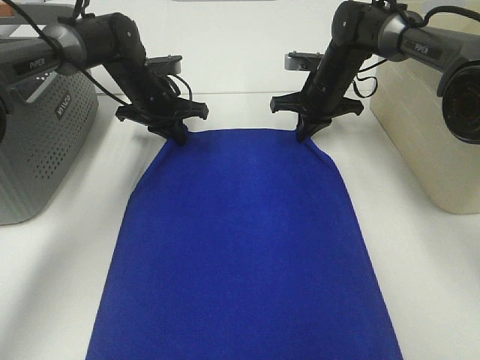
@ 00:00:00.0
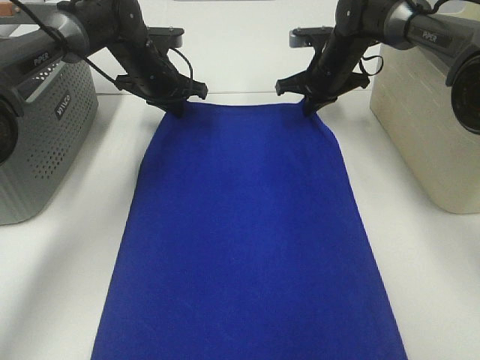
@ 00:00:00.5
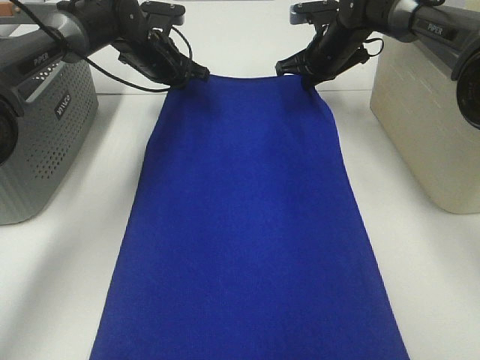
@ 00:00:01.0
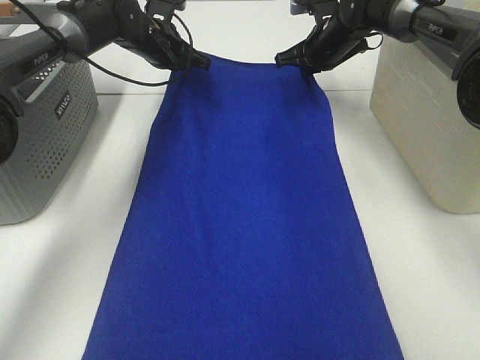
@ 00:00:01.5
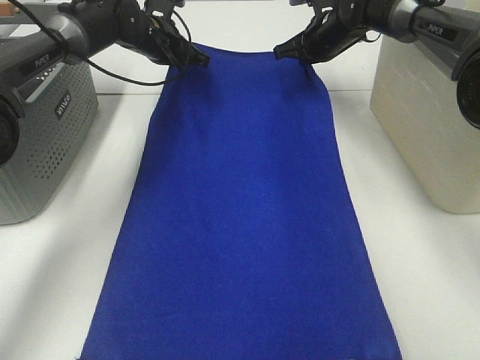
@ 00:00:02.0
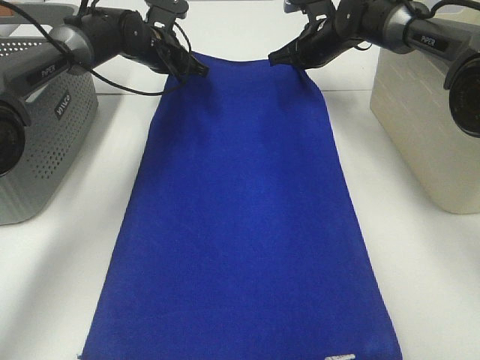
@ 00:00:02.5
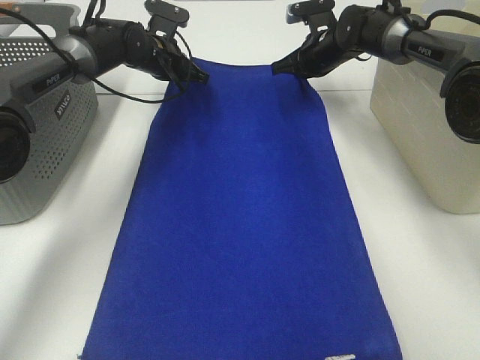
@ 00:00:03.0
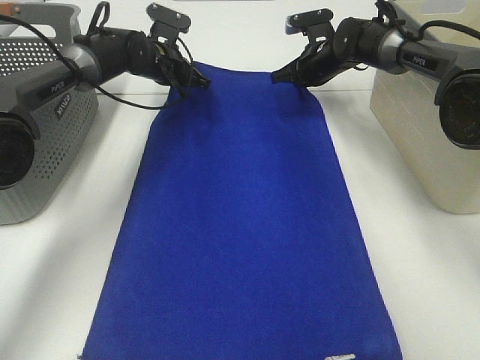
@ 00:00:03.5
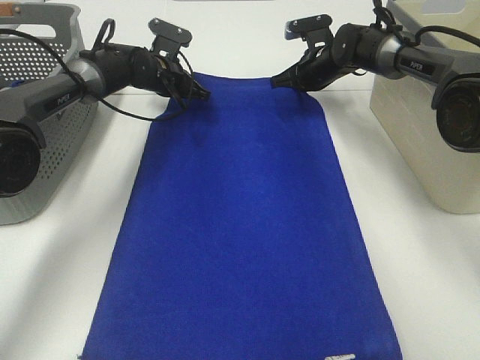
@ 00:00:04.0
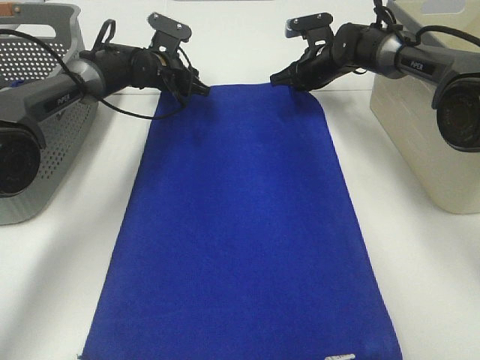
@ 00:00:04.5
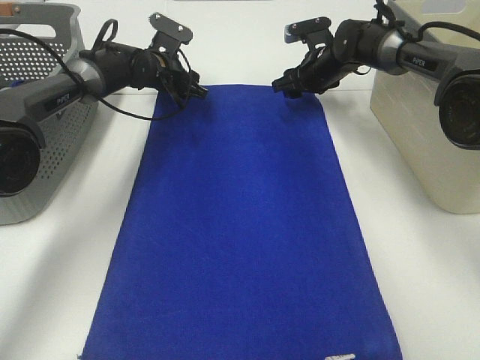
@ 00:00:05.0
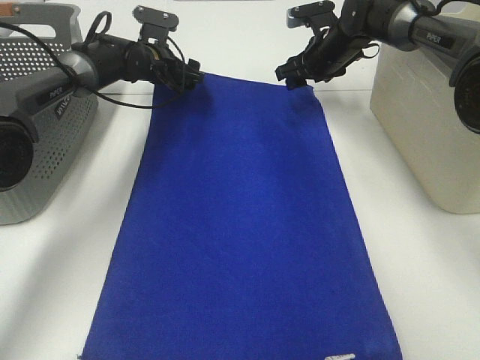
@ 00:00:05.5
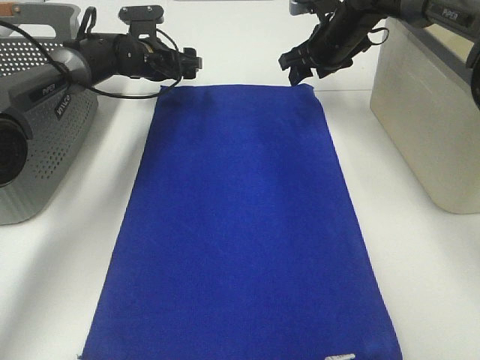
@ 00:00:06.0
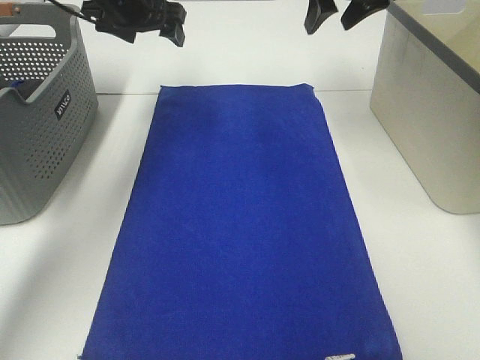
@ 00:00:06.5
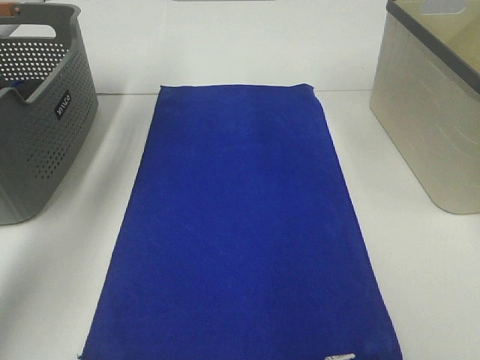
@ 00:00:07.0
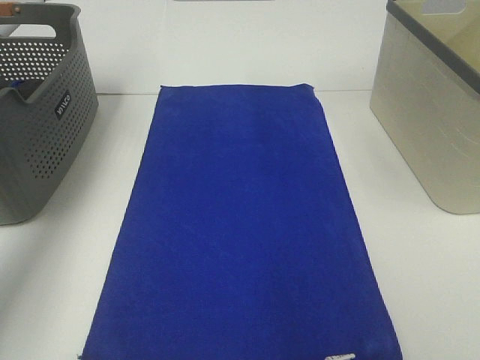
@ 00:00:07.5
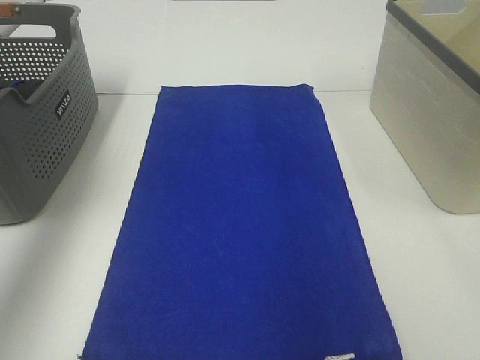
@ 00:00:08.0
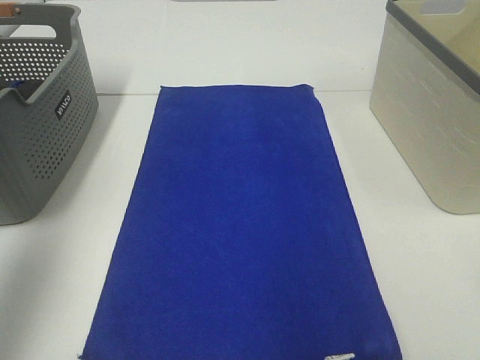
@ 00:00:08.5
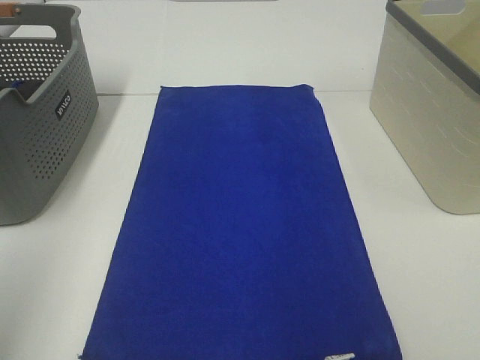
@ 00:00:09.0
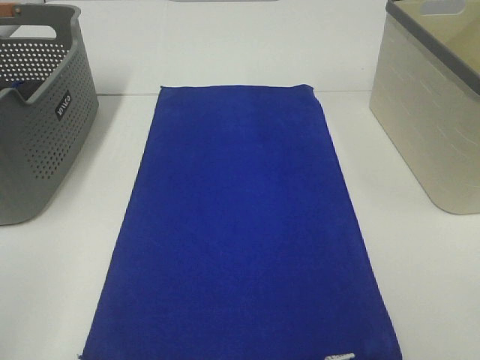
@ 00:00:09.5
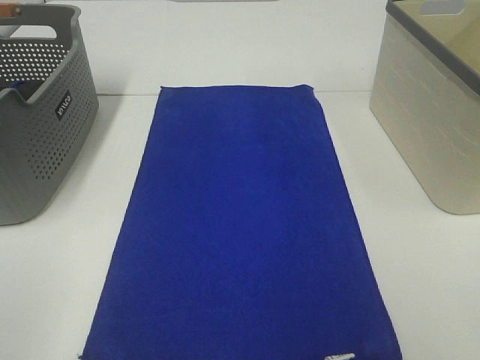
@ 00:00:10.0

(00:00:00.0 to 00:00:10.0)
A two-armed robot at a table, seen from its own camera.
Task of the whole recording: Remove the towel and place it.
00:00:00.0 - 00:00:02.0: The left gripper travels upward and forward by approximately 10 cm; the right gripper shifts roughly 5 cm upward.
00:00:02.0 - 00:00:04.0: Both grippers move downward, about 5 cm.
00:00:04.0 - 00:00:06.0: The left gripper opens, while the right gripper travels upward by approximately 10 cm, and opens up.
00:00:06.0 - 00:00:08.0: The left gripper moves upward, backward and to the left, some 40 cm, while the right gripper is displaced backward and upward by some 40 cm.
00:00:08.0 - 00:00:10.0: The left gripper moves backward, about 35 cm.

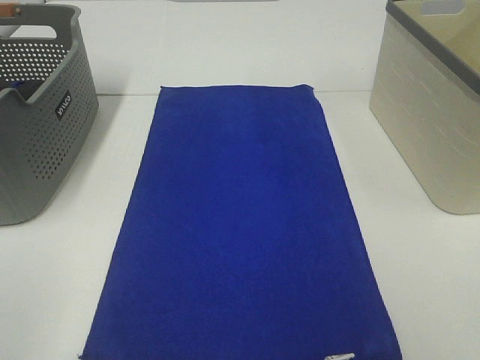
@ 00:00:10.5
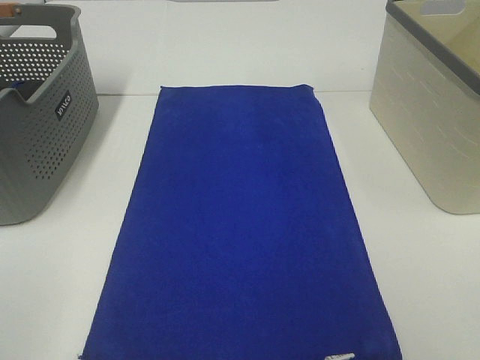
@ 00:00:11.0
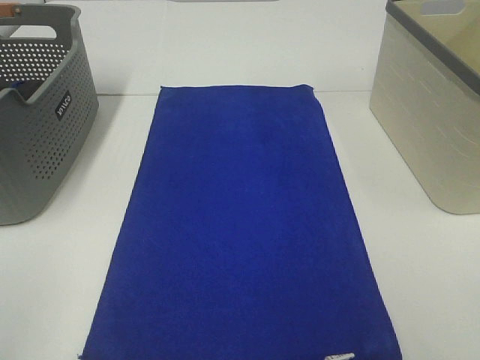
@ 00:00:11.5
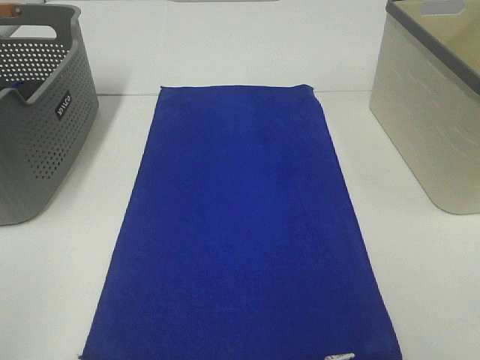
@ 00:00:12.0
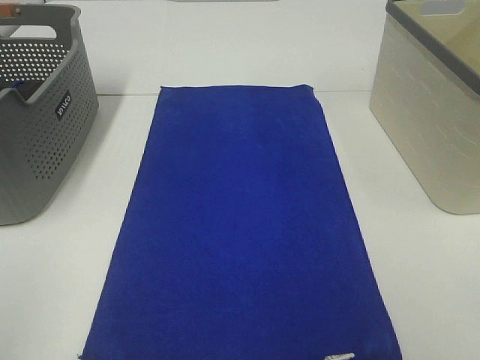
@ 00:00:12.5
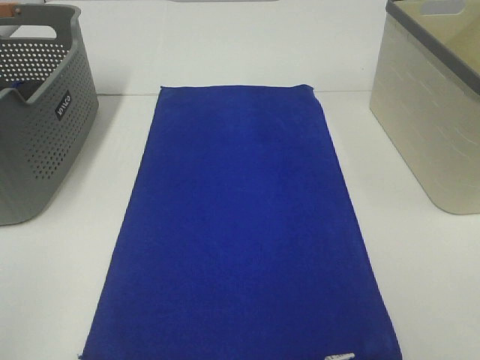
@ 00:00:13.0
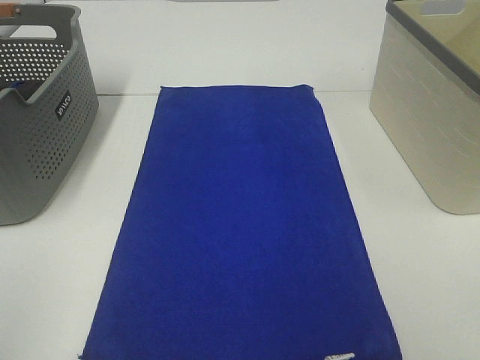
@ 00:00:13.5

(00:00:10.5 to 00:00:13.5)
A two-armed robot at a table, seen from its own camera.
Task of the whole recording: Remove the towel and place it.
00:00:12.0 - 00:00:13.5: Both grippers stay put.

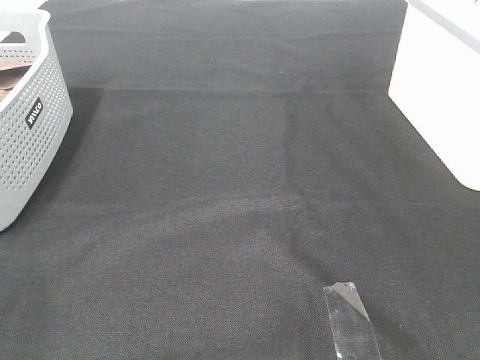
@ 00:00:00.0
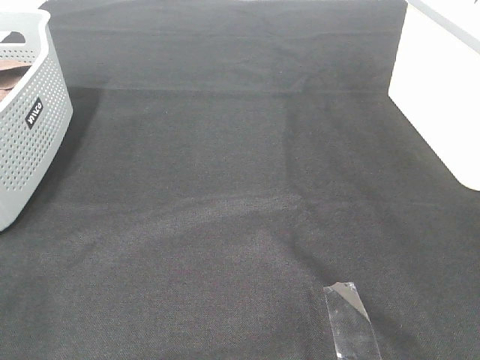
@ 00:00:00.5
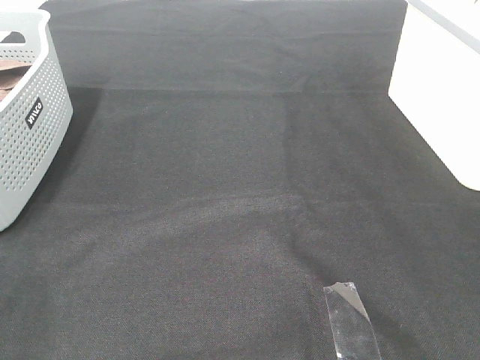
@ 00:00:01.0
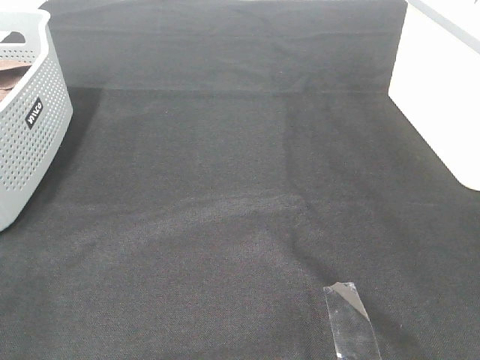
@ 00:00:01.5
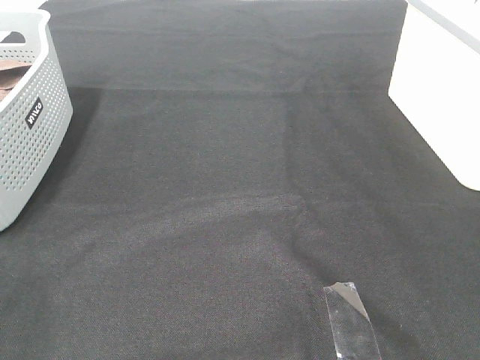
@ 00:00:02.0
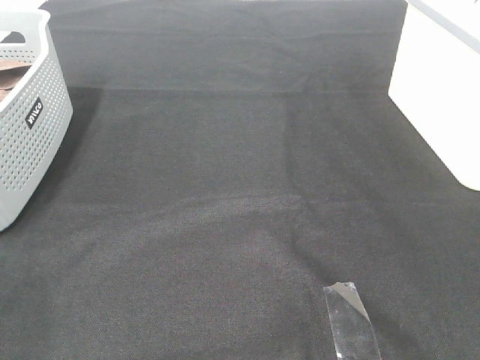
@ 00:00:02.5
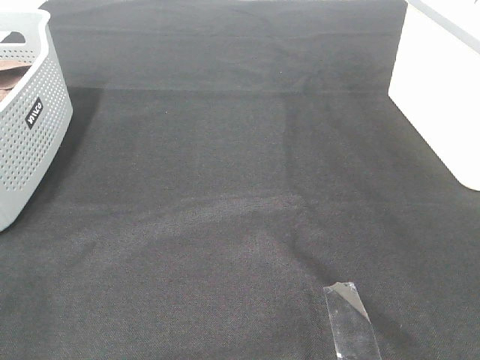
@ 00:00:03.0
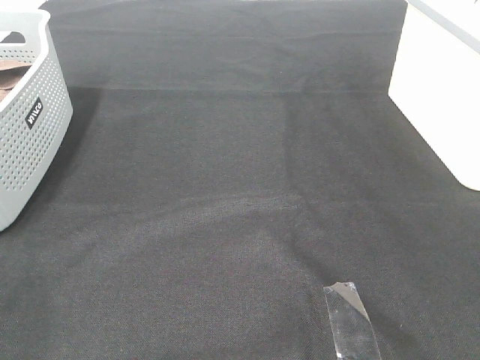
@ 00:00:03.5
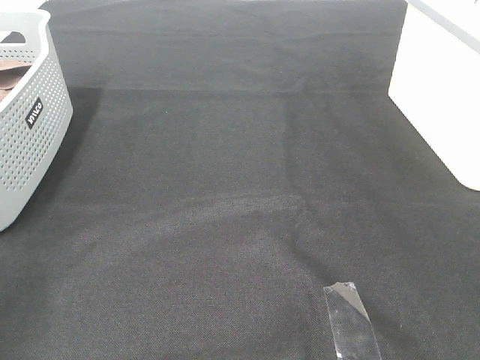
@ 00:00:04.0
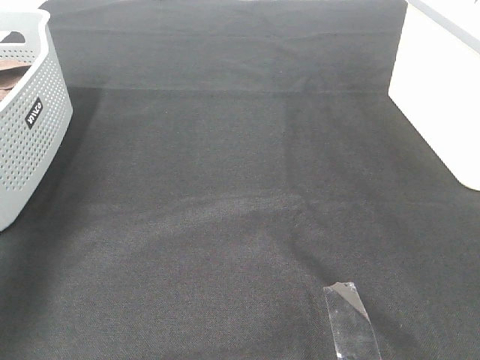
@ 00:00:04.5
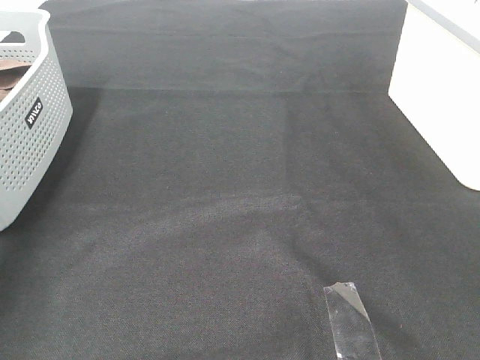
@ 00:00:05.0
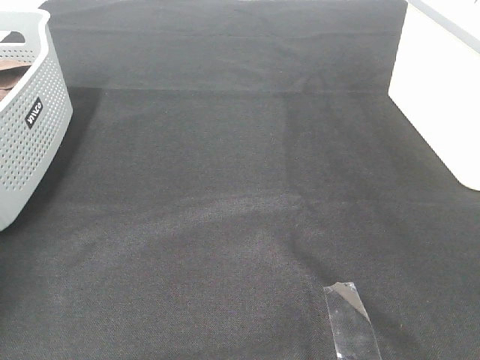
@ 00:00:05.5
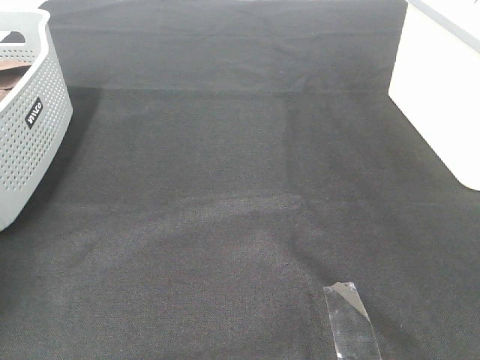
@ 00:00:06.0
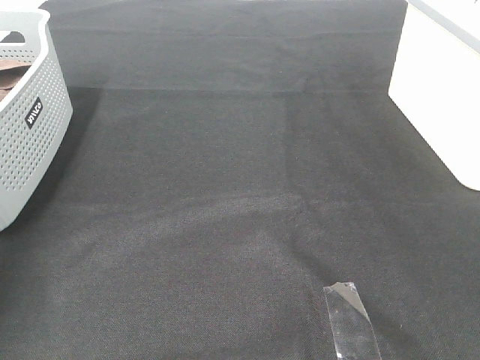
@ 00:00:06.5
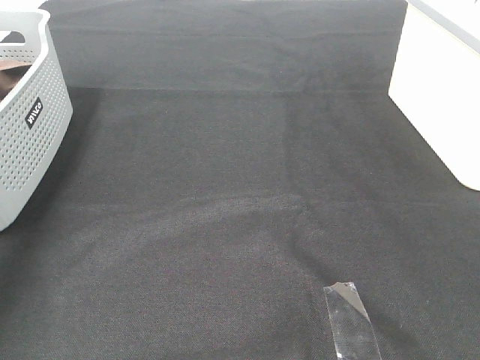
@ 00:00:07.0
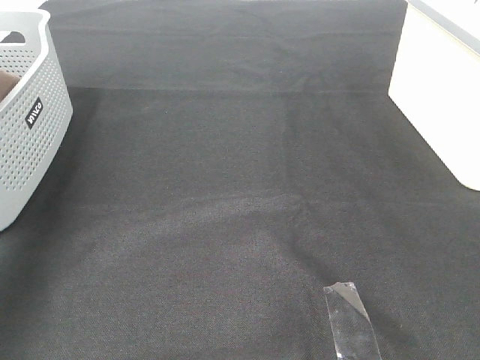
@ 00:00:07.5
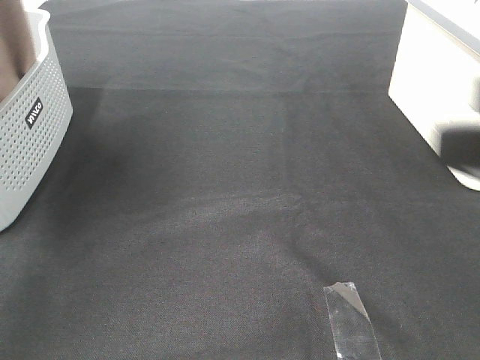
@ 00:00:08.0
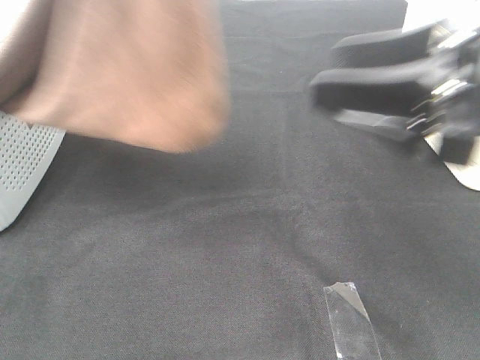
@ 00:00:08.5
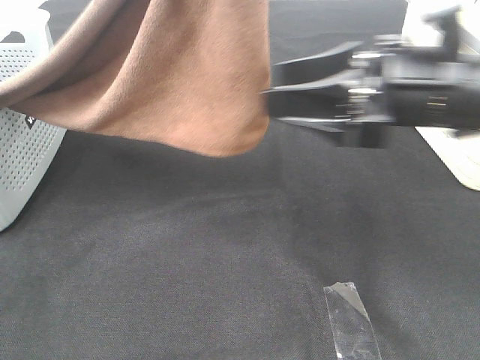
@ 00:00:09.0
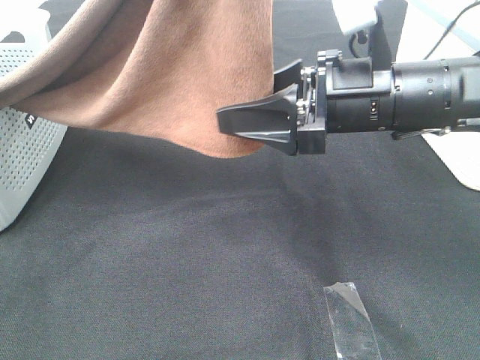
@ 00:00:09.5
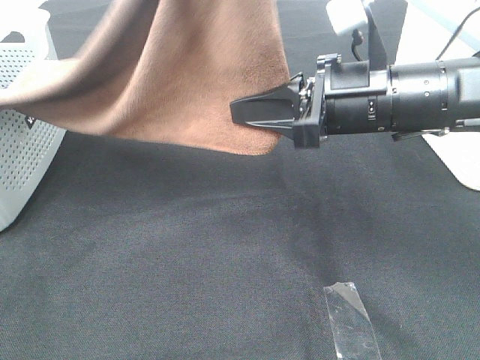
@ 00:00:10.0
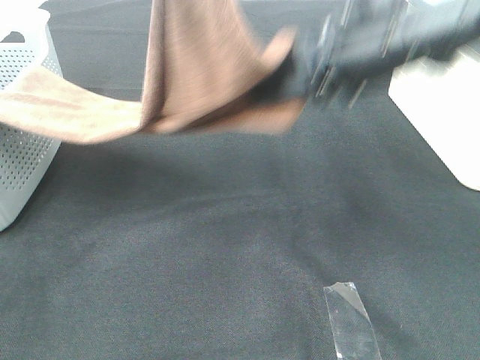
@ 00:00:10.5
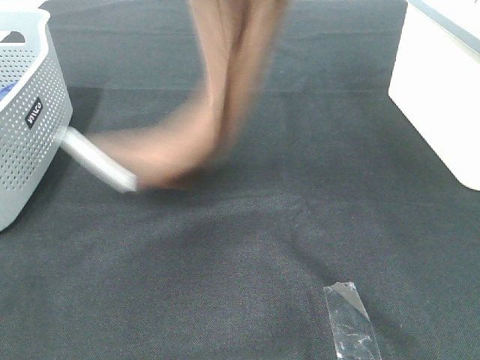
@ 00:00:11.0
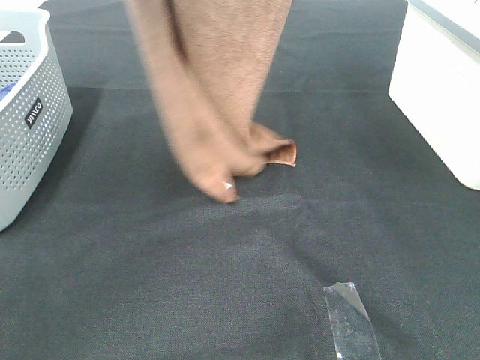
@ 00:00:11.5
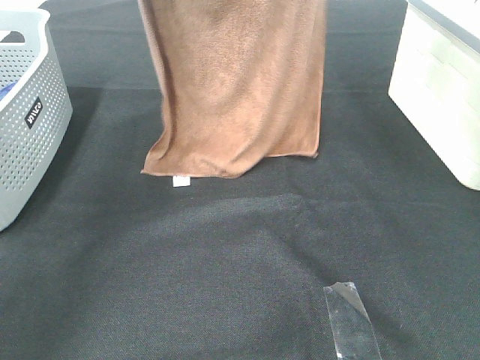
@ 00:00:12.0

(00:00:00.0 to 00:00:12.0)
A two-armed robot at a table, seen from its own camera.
Task of the whole recording: Remove the towel and place it.
Step, 00:00:07.5 - 00:00:10.0: Right hand: grab a corner of the brown towel and straighten it.
00:00:00.0 - 00:00:02.0: Neither gripper changes place.
00:00:06.0 - 00:00:08.0: The left gripper moves upward, backward and to the right, roughly 40 cm. Meanwhile the right gripper is displaced forward and to the left by some 15 cm.
00:00:08.0 - 00:00:10.0: The left gripper travels to the right by roughly 15 cm; the right gripper goes roughly 20 cm forward, downward and to the left, and closes.
00:00:10.0 - 00:00:12.0: The right gripper goes roughly 30 cm upward and forward. Meanwhile the left gripper is displaced forward and to the left by roughly 20 cm.
